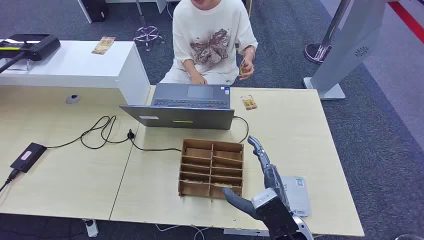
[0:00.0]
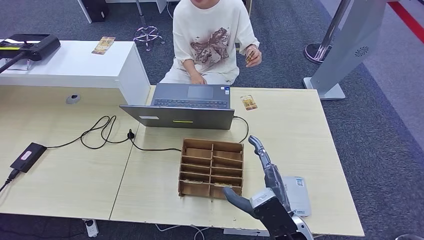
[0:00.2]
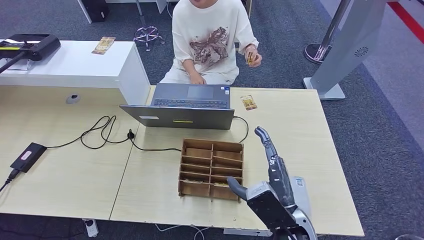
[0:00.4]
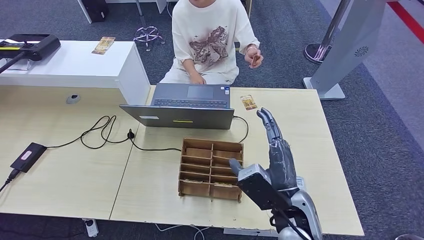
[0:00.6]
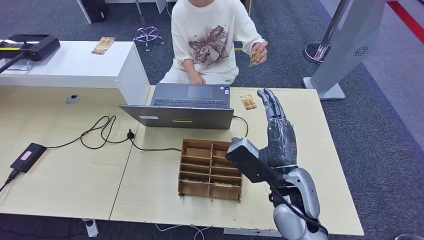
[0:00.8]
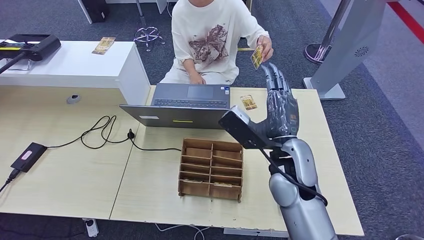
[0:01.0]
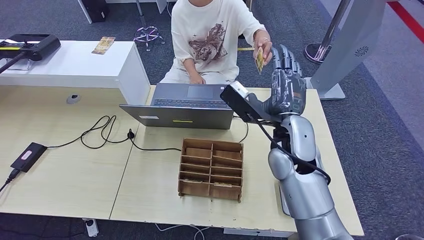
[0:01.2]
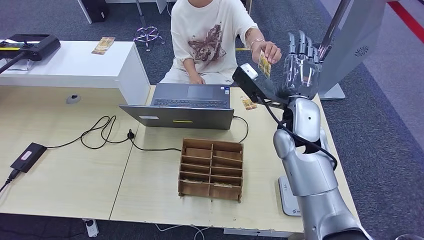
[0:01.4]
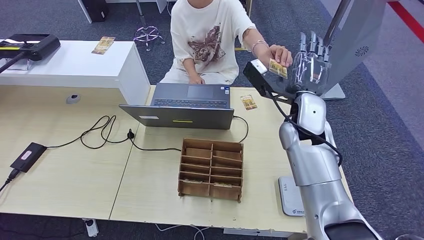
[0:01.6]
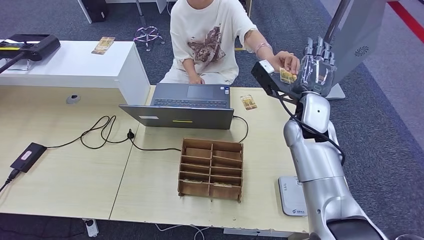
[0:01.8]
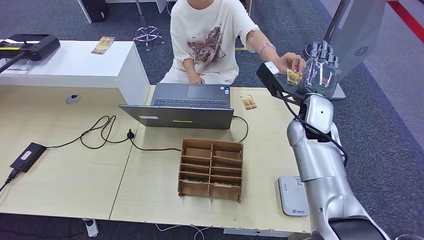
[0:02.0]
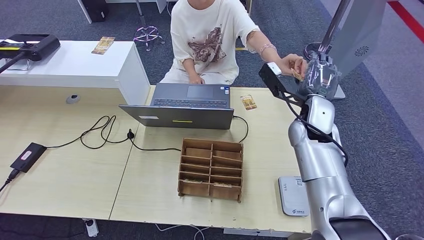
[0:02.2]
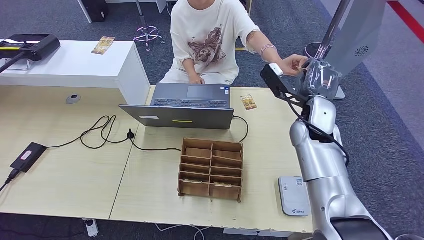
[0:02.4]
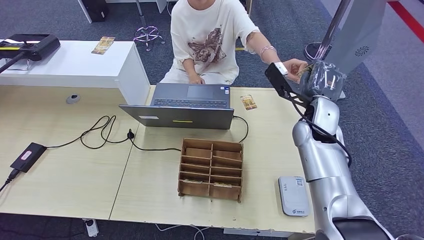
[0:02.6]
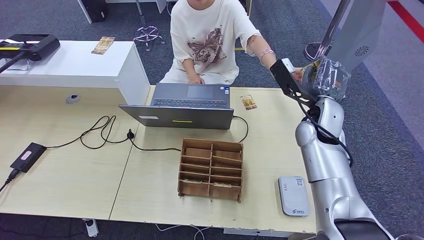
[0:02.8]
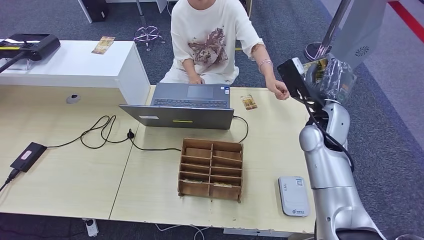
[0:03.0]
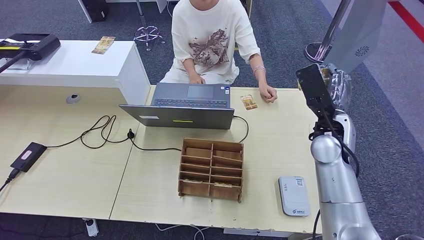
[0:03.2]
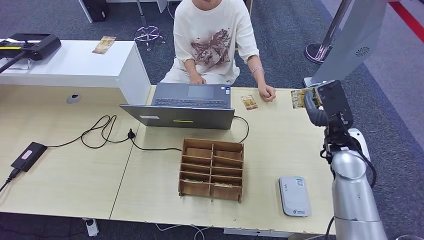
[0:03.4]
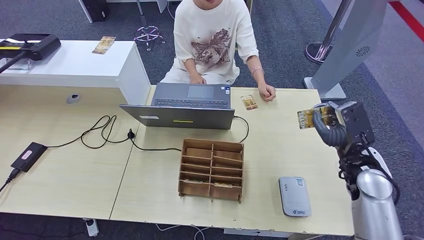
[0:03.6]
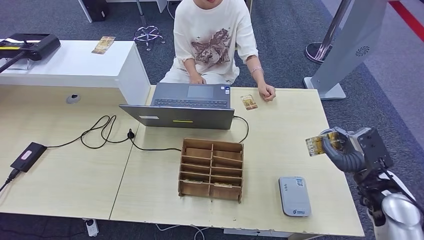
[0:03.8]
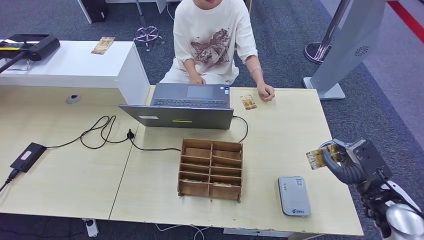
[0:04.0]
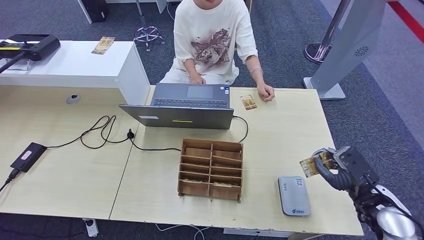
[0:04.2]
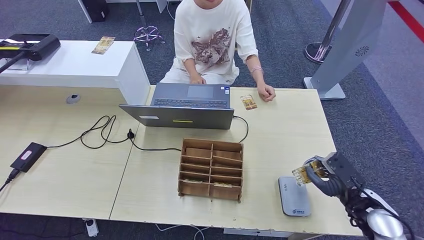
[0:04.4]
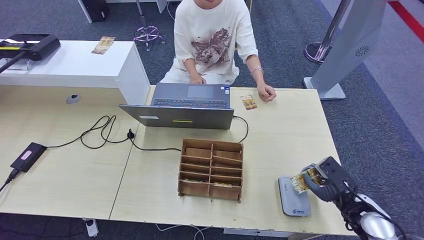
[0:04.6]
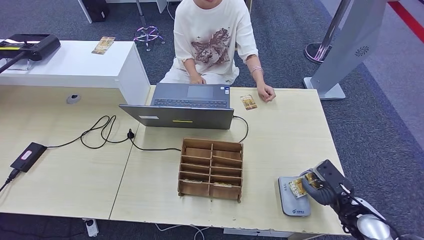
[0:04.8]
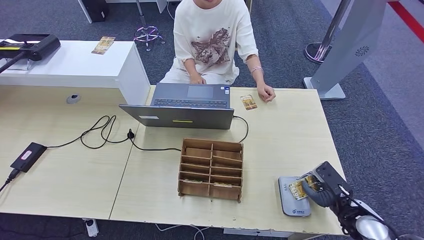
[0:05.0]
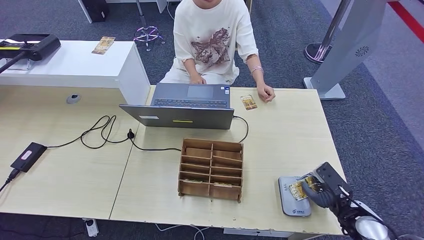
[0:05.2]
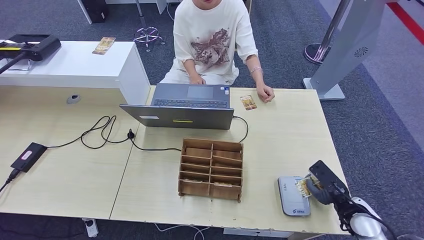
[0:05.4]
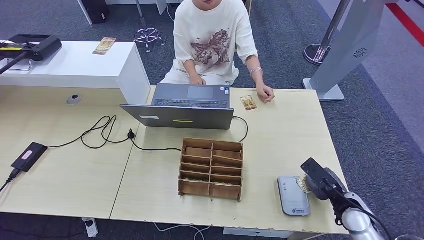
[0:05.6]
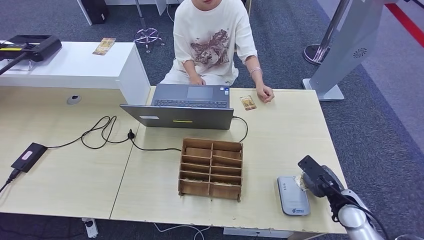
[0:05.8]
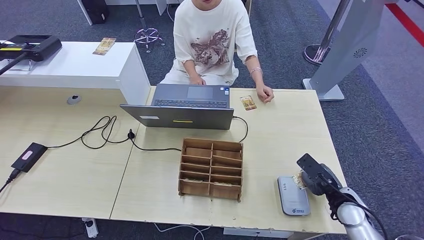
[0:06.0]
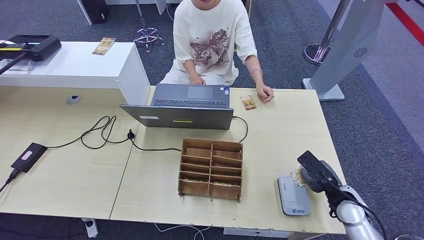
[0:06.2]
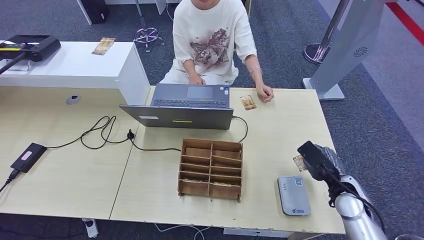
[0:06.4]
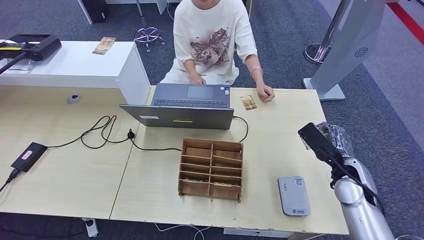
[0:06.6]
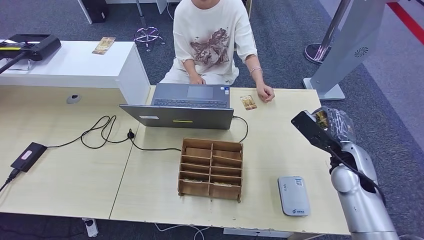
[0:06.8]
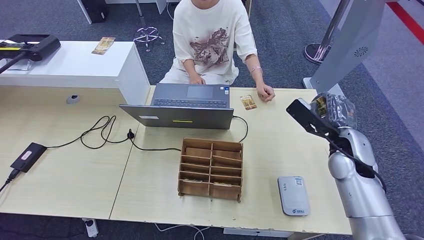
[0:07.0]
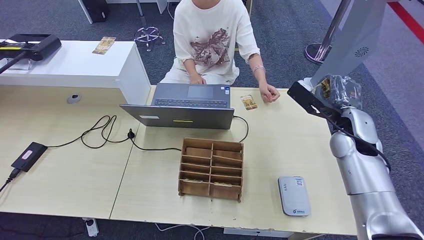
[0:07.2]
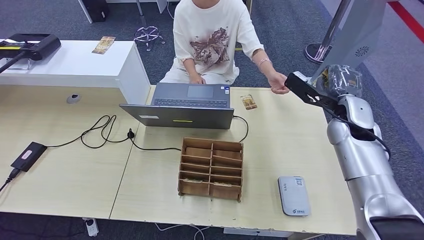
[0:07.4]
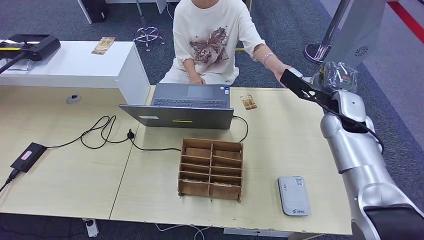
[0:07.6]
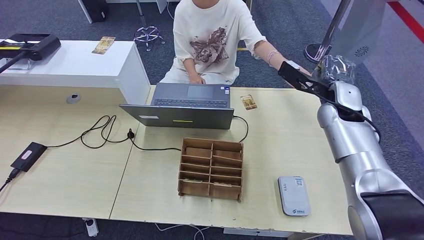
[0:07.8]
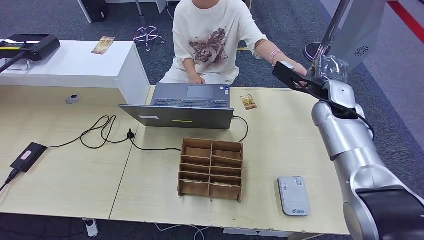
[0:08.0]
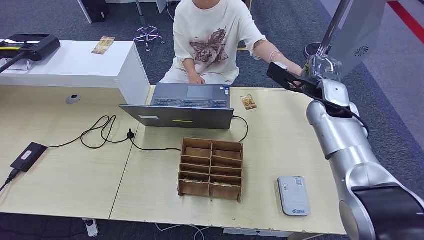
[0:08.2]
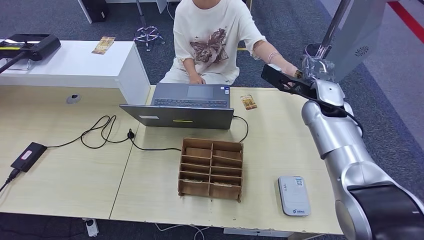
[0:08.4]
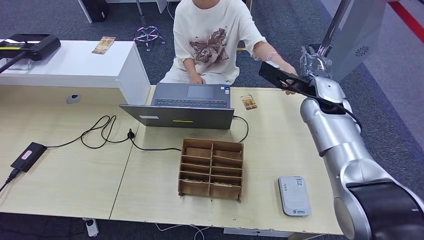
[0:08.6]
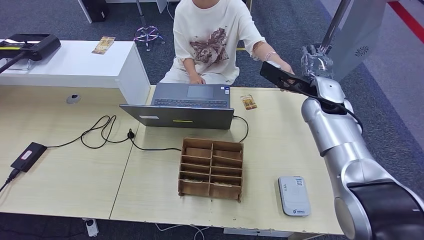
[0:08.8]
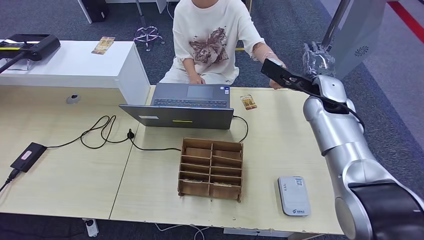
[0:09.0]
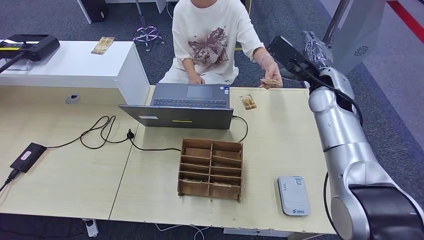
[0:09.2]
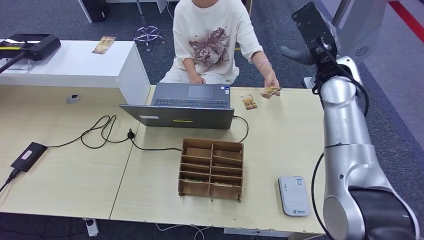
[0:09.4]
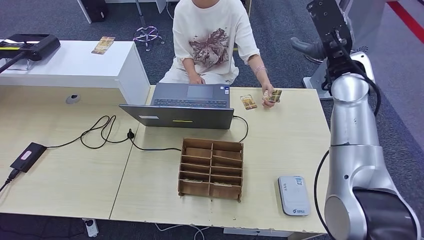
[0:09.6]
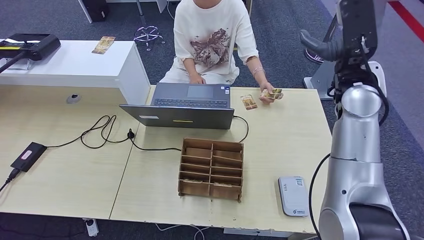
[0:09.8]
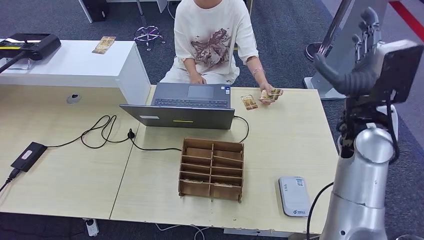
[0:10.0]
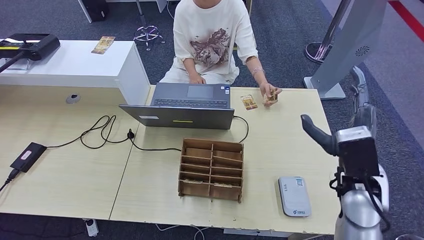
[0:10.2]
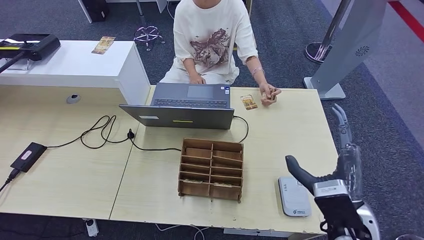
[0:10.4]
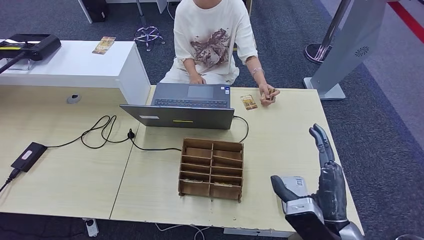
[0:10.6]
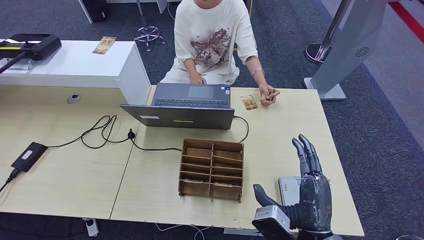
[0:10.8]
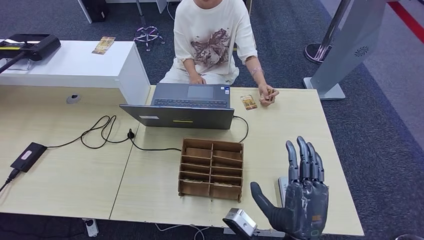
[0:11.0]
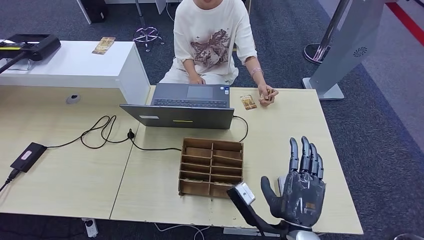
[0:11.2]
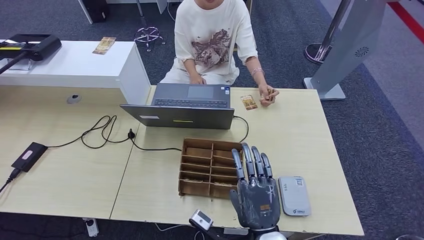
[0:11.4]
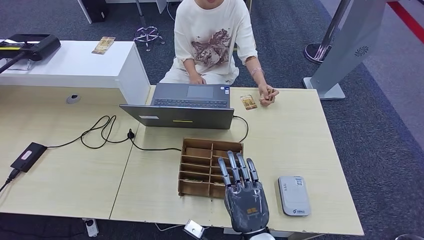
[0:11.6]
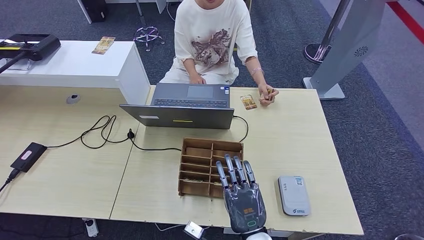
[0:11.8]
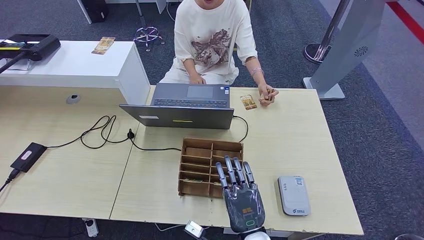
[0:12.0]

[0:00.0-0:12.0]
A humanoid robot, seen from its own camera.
Step, 0:00.0 to 0:03.4: Take the ID card from the person's hand.
Step, 0:03.6 to 0:06.4: Place the ID card on the card reader.
Step, 0:06.6 to 0:09.8: Hand the ID card to the person.
0:01.6 to 0:03.0: The right hand is displaced to the right by about 5 cm.
0:03.0 to 0:04.4: The right hand moves backward, downward and to the right, approximately 25 cm.
0:04.4 to 0:06.0: The right hand is displaced downward by some 5 cm.
0:06.0 to 0:07.6: The right hand shifts about 25 cm upward and forward.
0:07.6 to 0:09.0: The right hand goes roughly 5 cm to the left.
0:09.0 to 0:10.4: The right hand shifts about 25 cm backward.
0:10.4 to 0:12.0: The right hand goes about 20 cm to the left and downward.

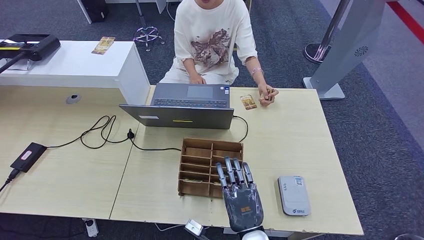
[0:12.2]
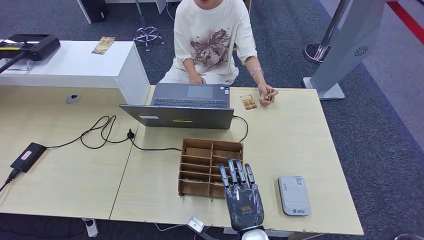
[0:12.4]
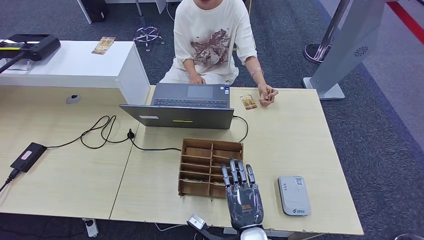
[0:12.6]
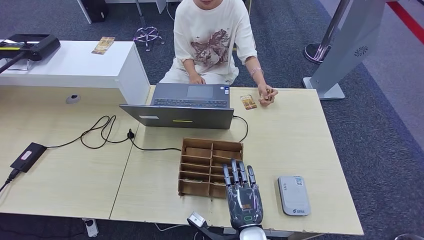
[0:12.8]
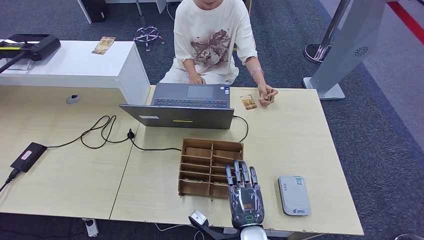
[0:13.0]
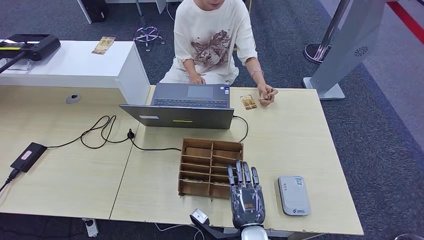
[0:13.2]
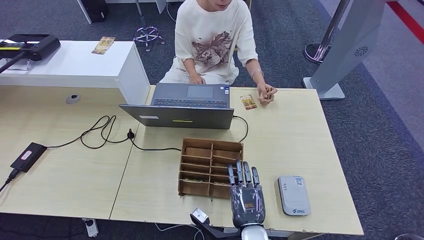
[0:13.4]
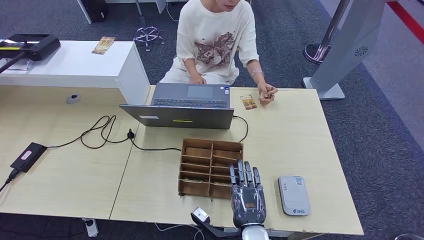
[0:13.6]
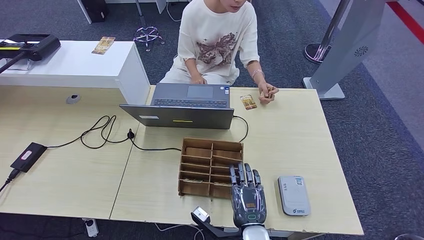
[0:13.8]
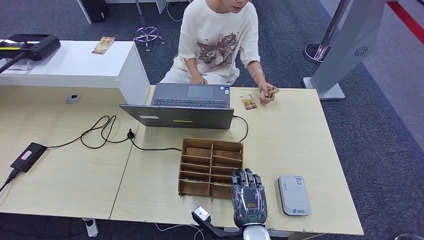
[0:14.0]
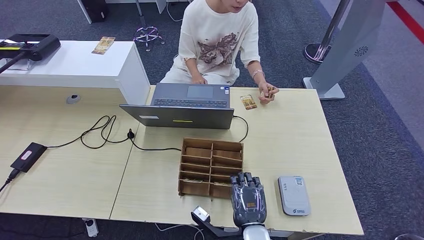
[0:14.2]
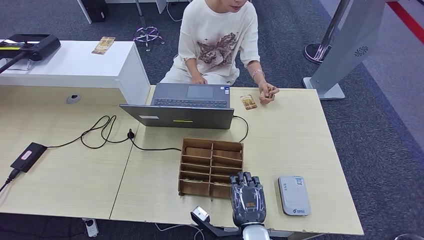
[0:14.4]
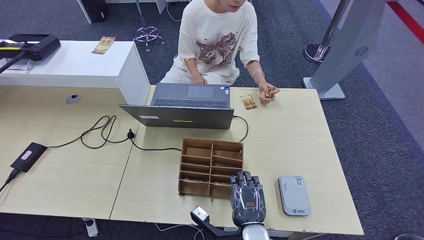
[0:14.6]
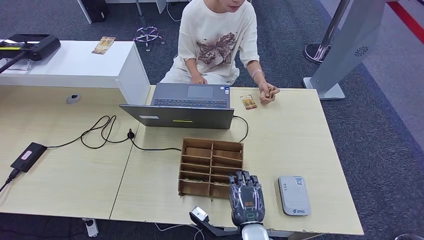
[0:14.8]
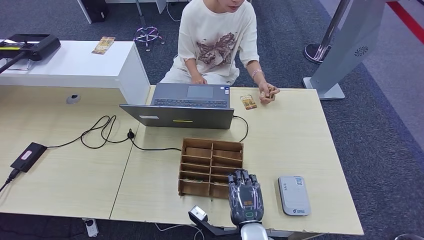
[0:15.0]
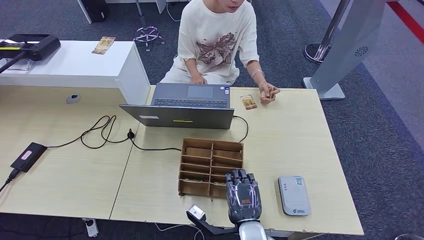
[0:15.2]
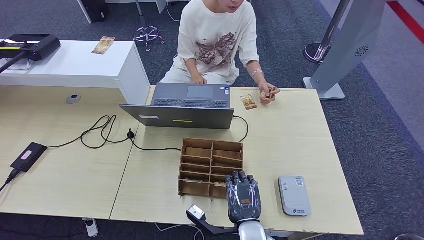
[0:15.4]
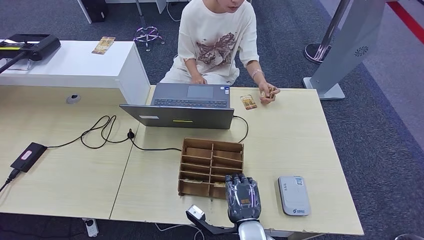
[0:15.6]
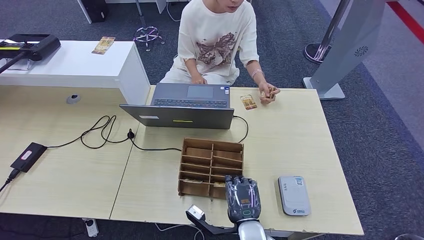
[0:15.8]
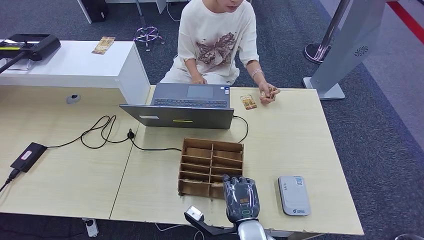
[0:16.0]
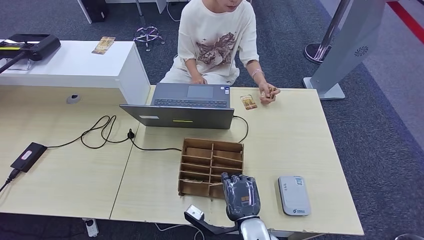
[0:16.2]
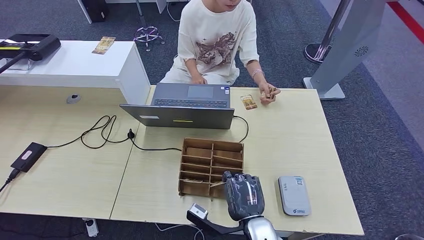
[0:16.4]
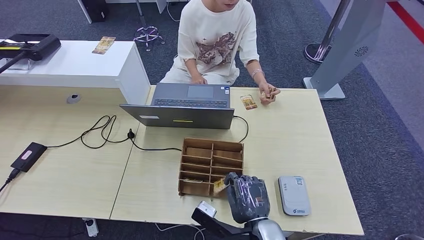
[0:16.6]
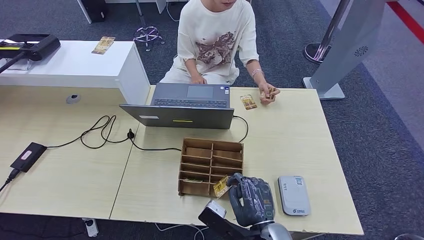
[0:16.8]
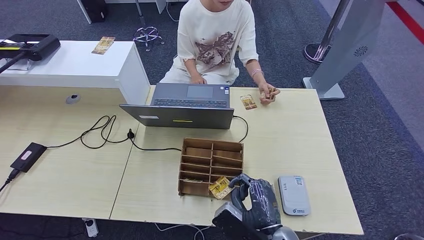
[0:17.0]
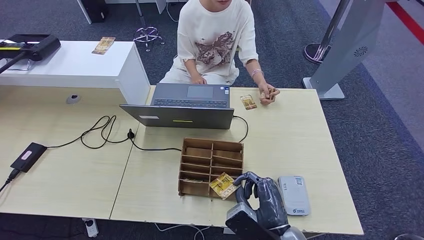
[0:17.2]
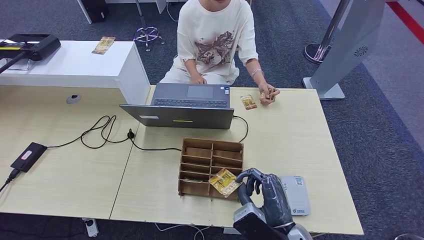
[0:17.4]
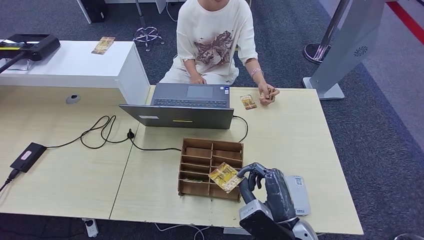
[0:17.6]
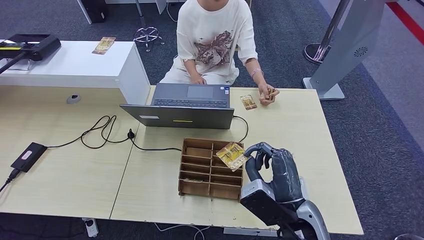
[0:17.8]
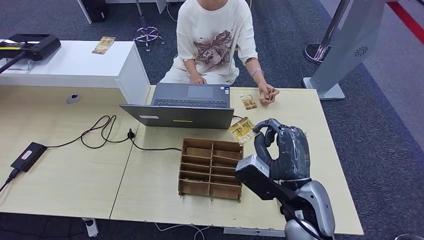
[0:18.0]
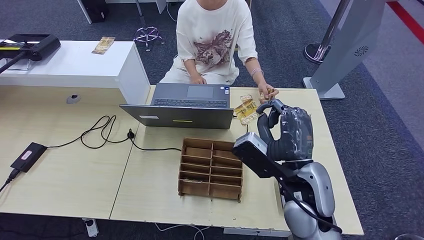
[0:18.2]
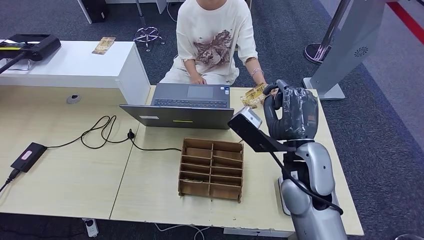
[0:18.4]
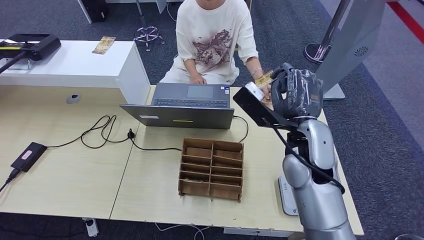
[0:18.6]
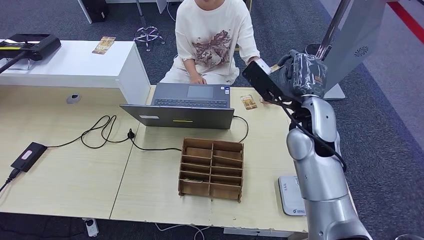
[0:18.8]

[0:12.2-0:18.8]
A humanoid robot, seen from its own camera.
Step, 0:12.2 to 0:17.2: Pick up the room key from the key card box.
0:12.2 to 0:13.8: There are only small adjustments of the hands.
0:13.8 to 0:15.4: Both hands stay put.
0:15.4 to 0:17.2: The right hand heads to the right and upward, covering approximately 10 cm.
0:17.2 to 0:18.8: The right hand moves forward and upward, roughly 25 cm.
